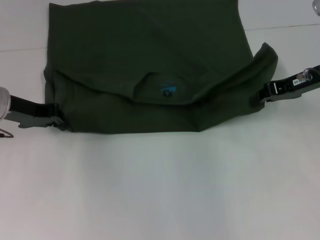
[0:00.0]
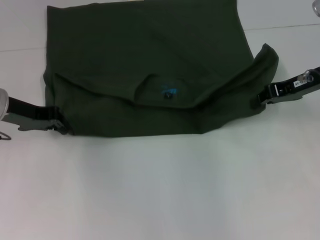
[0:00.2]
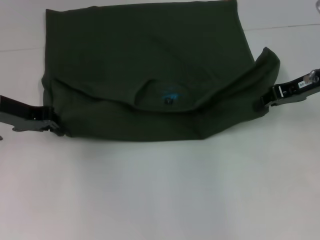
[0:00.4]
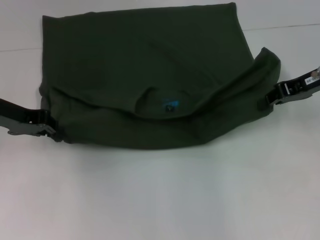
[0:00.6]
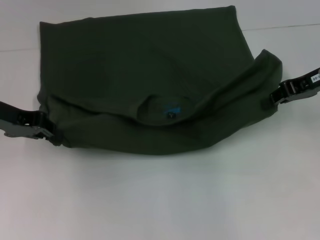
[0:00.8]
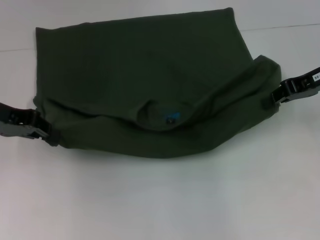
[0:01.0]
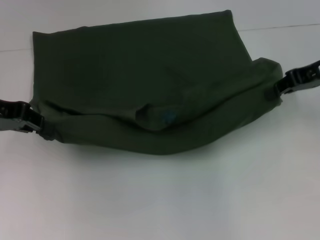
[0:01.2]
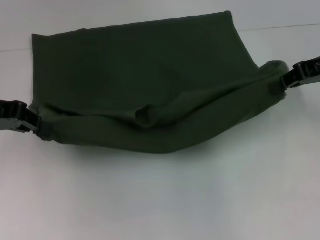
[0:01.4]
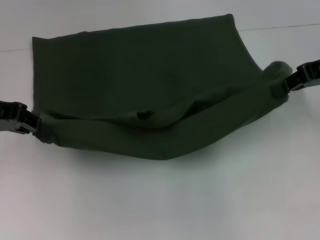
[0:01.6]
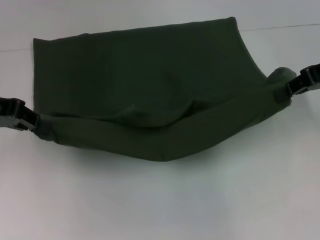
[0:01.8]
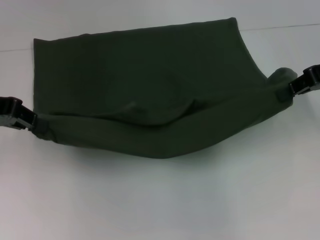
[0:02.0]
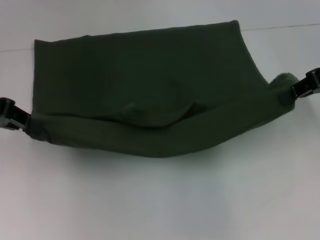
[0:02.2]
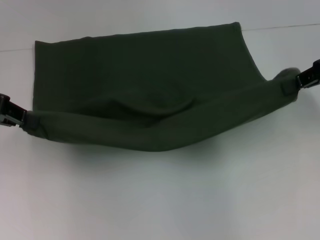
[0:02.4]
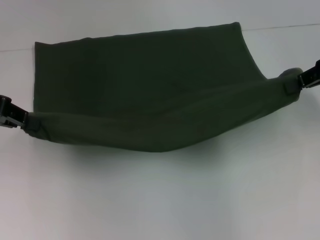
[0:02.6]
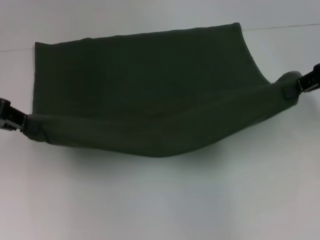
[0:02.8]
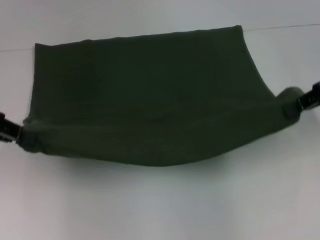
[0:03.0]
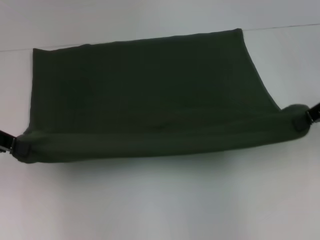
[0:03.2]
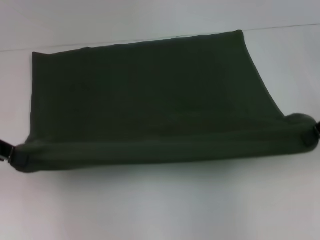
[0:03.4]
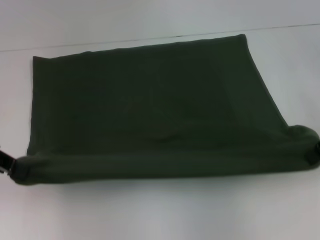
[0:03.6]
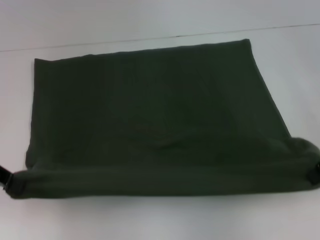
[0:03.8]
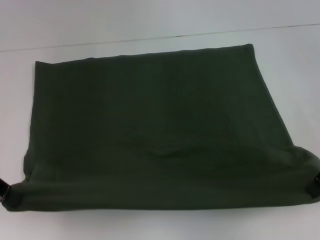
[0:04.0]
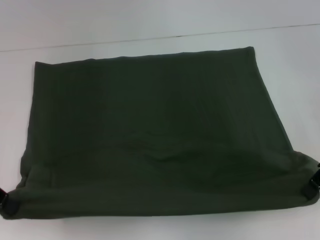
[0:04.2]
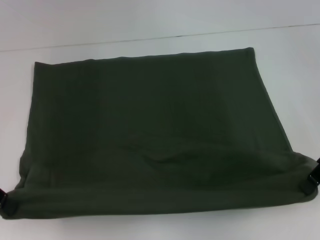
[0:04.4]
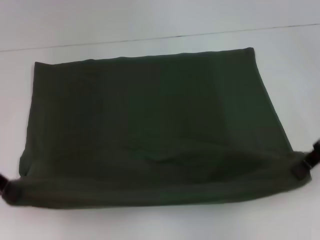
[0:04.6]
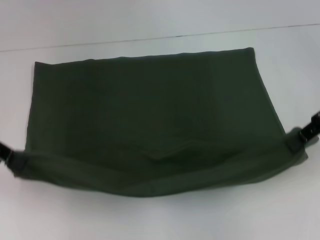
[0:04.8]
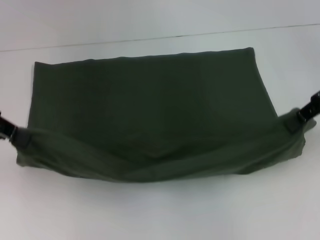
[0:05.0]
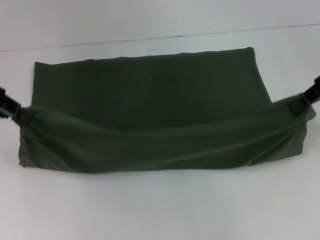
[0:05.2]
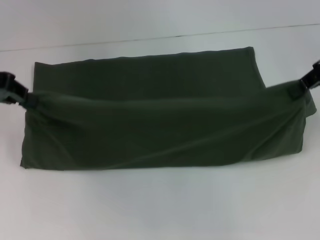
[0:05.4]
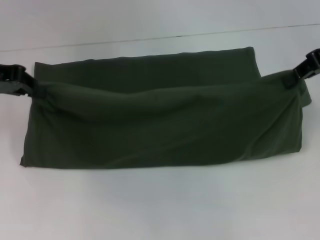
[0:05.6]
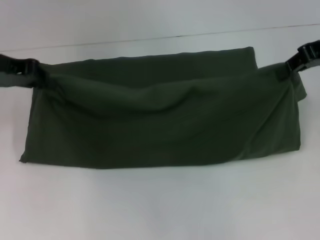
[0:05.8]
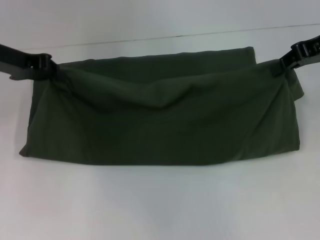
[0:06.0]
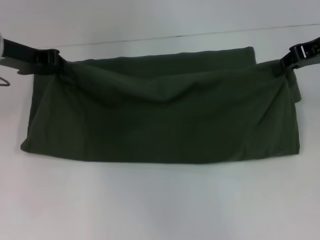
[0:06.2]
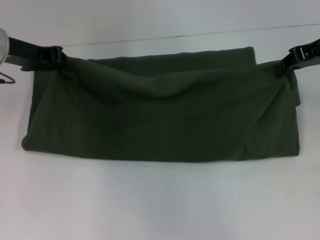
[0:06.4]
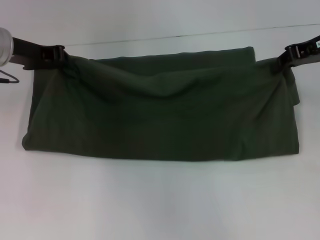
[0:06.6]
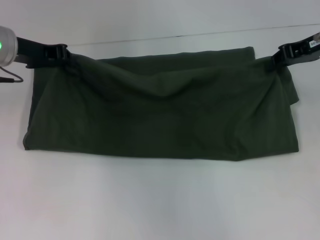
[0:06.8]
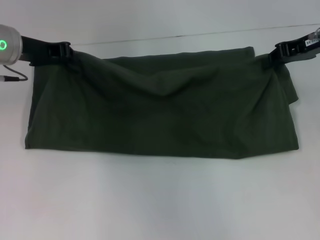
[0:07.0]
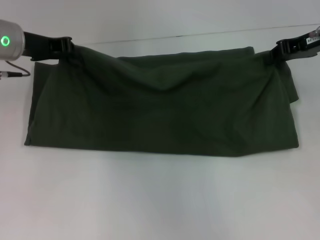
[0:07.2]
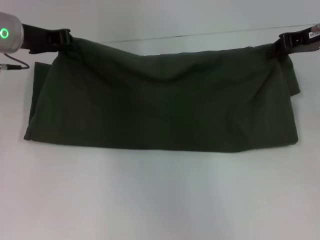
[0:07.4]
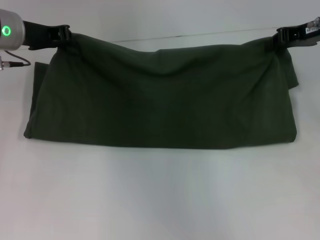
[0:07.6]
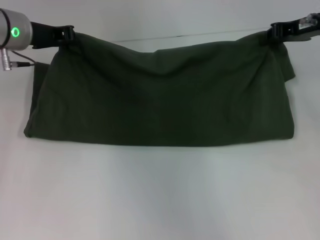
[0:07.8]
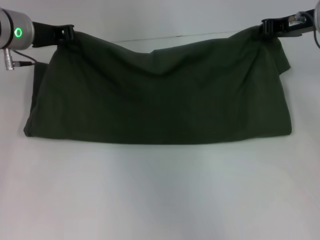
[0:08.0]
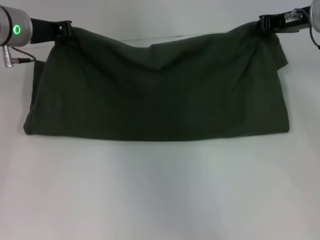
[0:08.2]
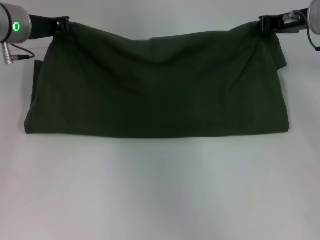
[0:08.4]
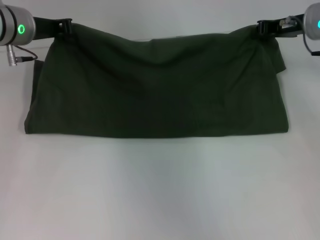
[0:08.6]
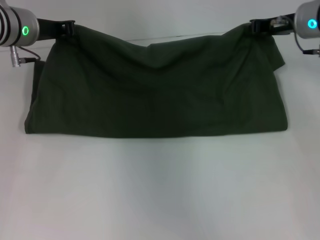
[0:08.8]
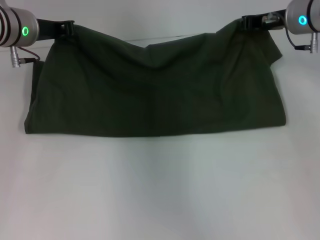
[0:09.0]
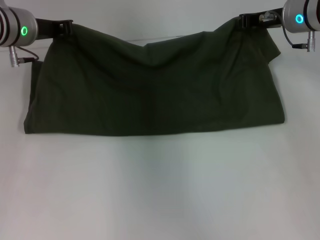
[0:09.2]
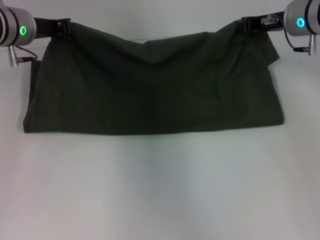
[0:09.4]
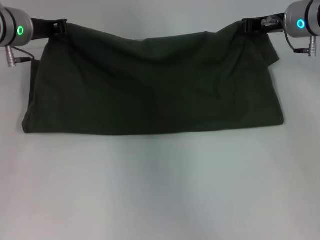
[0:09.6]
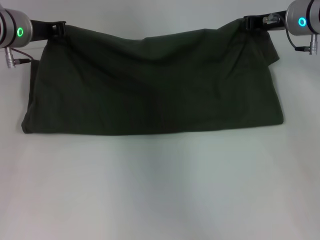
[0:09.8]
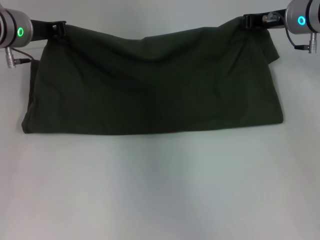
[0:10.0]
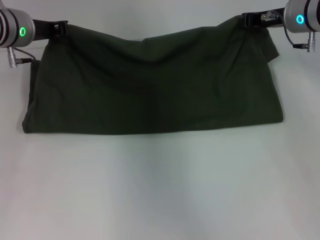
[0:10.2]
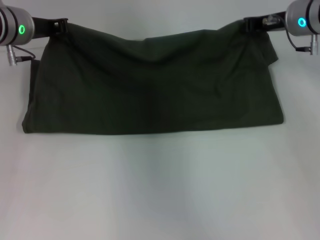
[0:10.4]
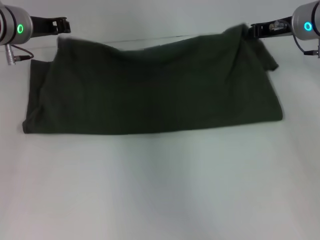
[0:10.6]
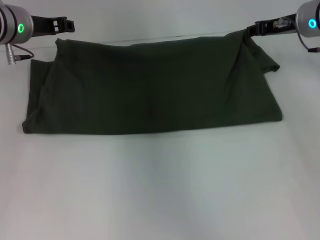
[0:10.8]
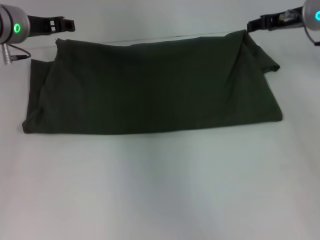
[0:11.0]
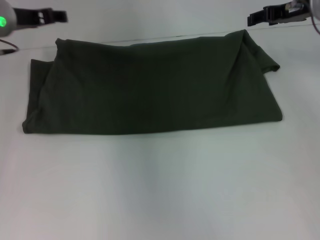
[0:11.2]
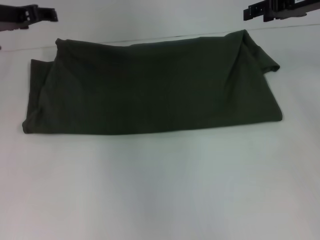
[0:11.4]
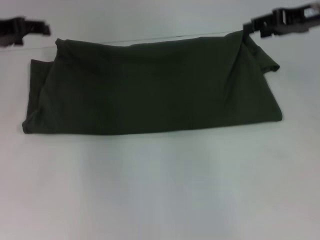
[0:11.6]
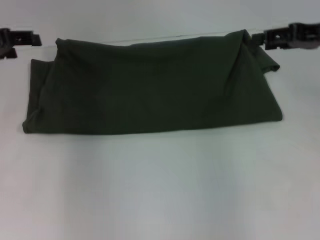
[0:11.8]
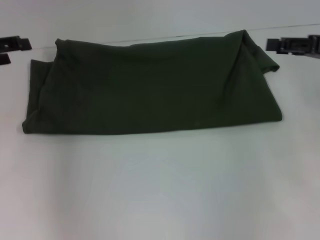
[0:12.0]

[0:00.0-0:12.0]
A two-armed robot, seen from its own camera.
Step, 0:01.4 to 0:10.8: Fold the clothes with your left hand.
Step, 0:01.4 to 0:10.8: Fold the clothes with your right hand.
0:00.0 to 0:01.6: Both grippers move upward, some 10 cm.
0:01.6 to 0:03.0: The grippers make only small movements.
0:03.0 to 0:04.4: The right gripper moves approximately 5 cm.
0:04.4 to 0:06.0: The left gripper travels forward and to the right by some 10 cm. The right gripper shifts roughly 10 cm forward and upward.
0:06.0 to 0:07.6: The left gripper shifts by approximately 5 cm.
0:07.6 to 0:09.0: The right gripper goes approximately 5 cm to the left.
0:09.0 to 0:10.4: Neither gripper changes place.
0:10.4 to 0:12.0: The right gripper heads backward and to the right, covering roughly 15 cm, and opens up. Meanwhile the left gripper goes roughly 15 cm to the left and backward, and opens.

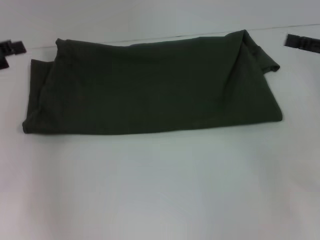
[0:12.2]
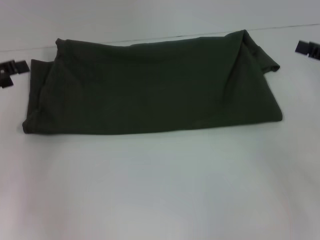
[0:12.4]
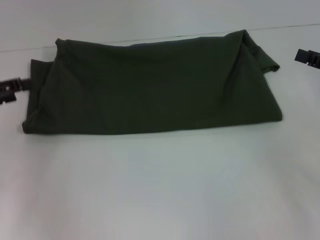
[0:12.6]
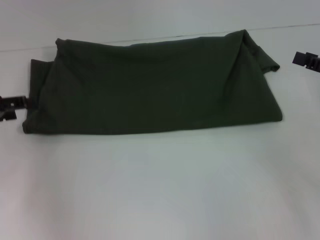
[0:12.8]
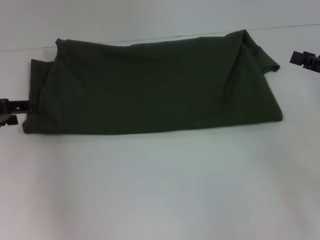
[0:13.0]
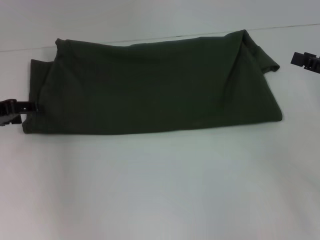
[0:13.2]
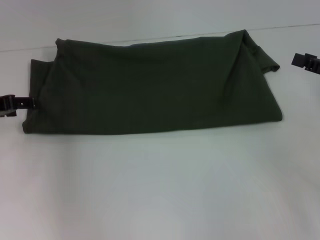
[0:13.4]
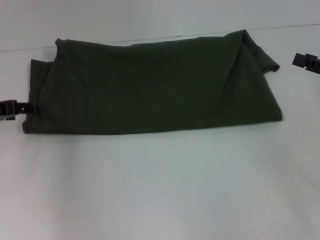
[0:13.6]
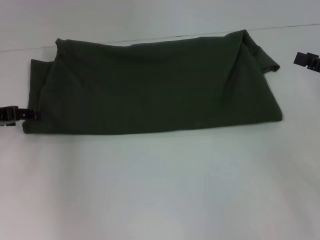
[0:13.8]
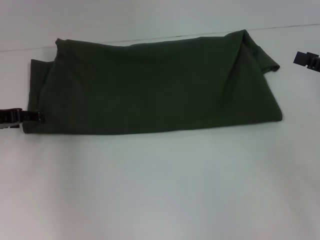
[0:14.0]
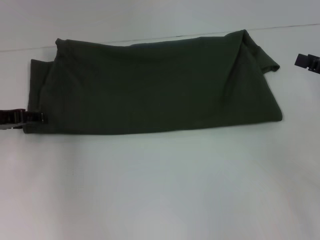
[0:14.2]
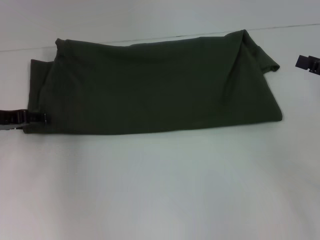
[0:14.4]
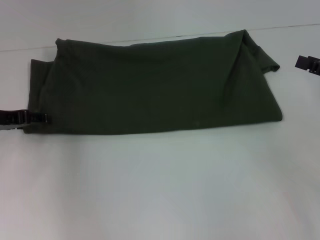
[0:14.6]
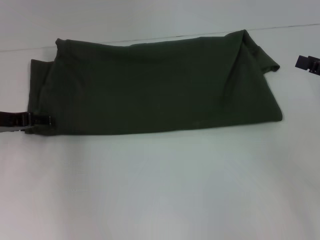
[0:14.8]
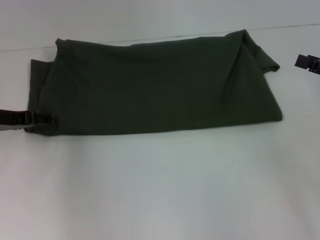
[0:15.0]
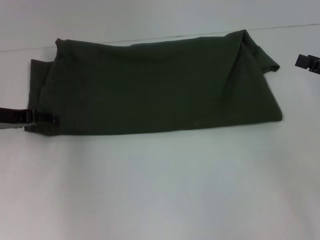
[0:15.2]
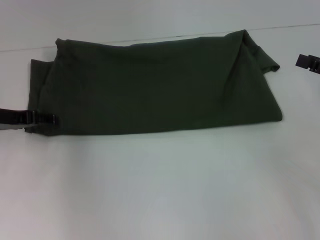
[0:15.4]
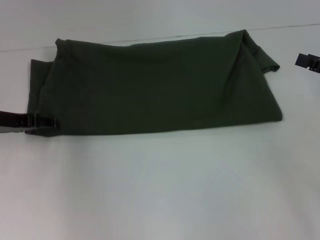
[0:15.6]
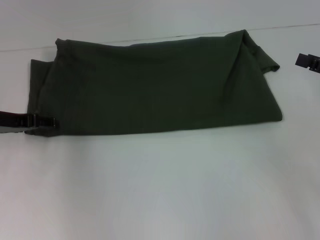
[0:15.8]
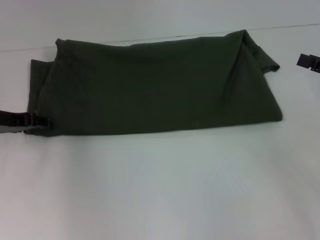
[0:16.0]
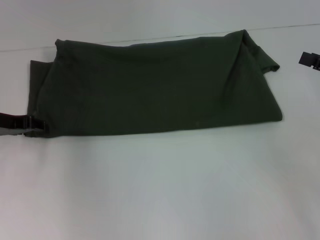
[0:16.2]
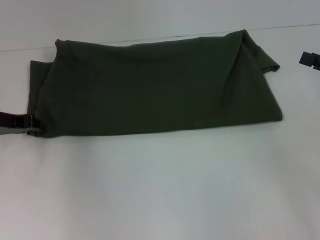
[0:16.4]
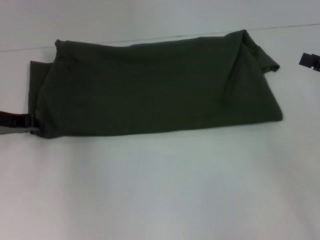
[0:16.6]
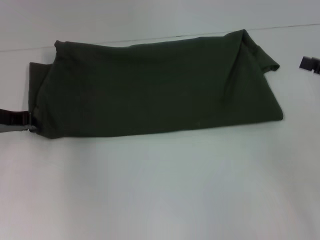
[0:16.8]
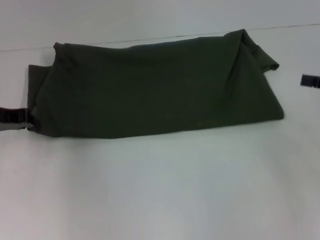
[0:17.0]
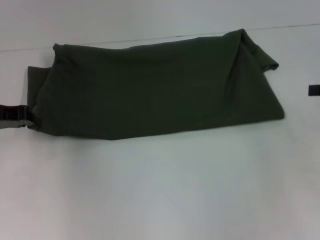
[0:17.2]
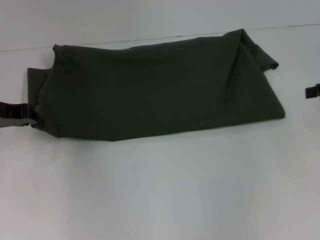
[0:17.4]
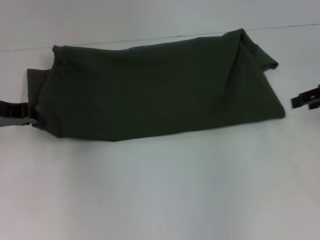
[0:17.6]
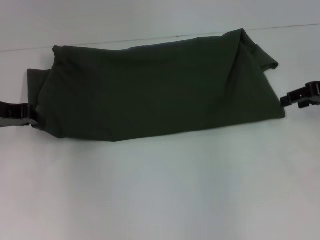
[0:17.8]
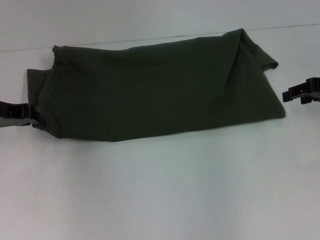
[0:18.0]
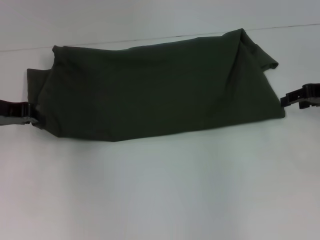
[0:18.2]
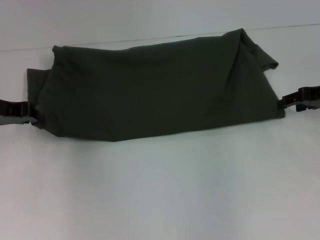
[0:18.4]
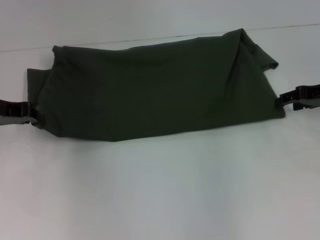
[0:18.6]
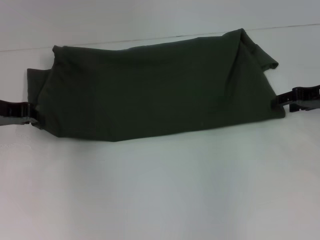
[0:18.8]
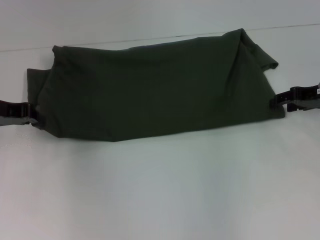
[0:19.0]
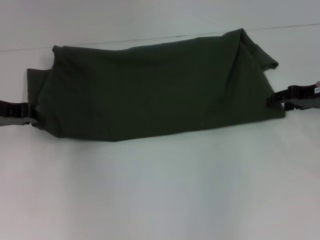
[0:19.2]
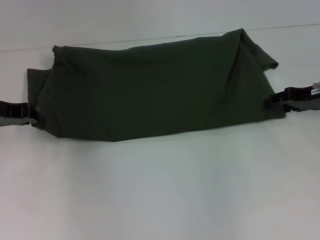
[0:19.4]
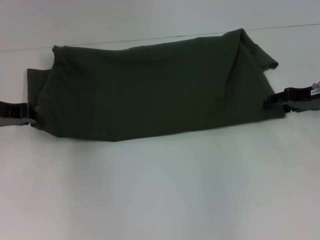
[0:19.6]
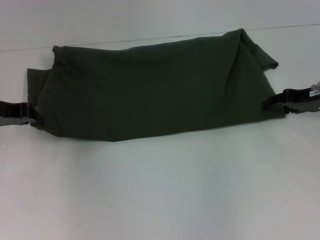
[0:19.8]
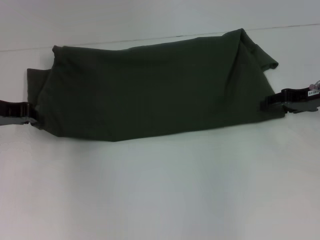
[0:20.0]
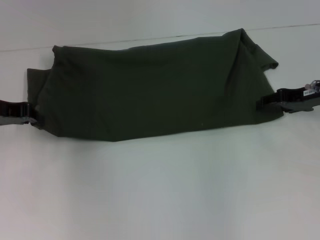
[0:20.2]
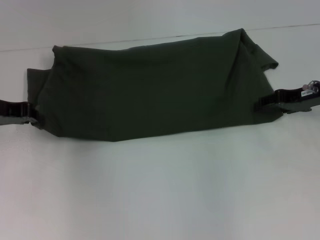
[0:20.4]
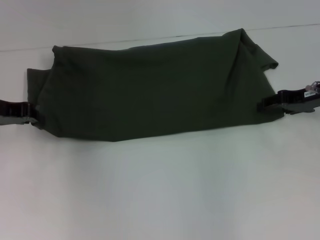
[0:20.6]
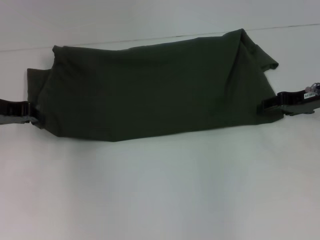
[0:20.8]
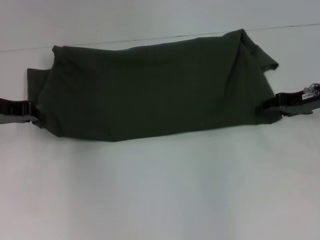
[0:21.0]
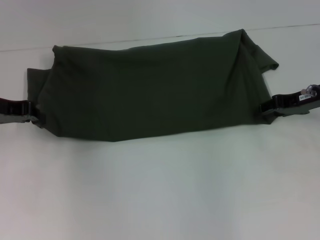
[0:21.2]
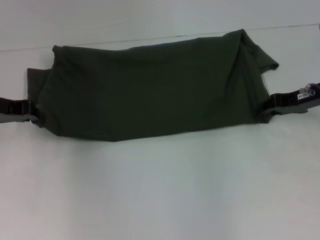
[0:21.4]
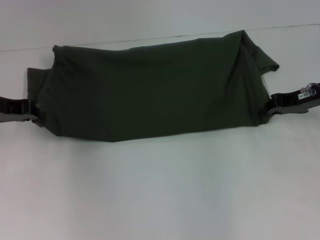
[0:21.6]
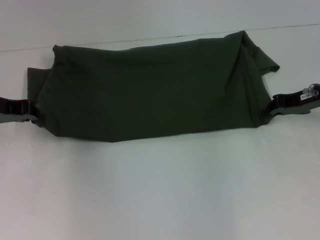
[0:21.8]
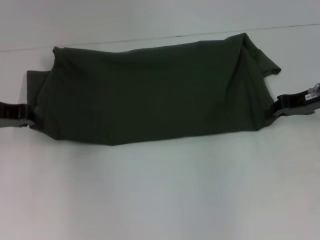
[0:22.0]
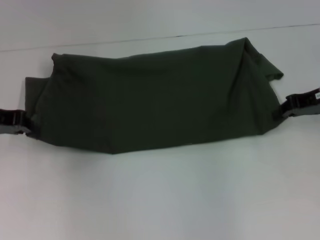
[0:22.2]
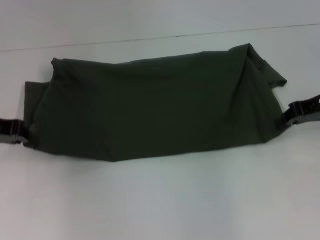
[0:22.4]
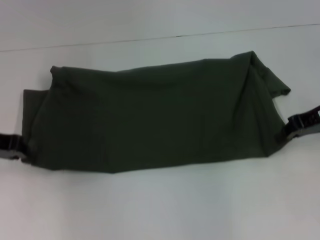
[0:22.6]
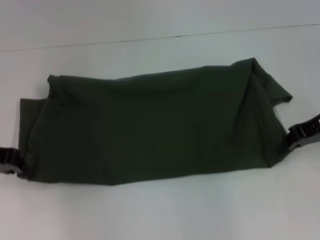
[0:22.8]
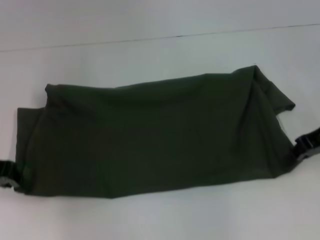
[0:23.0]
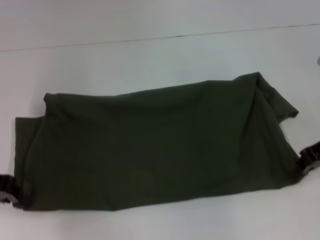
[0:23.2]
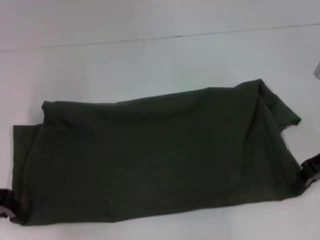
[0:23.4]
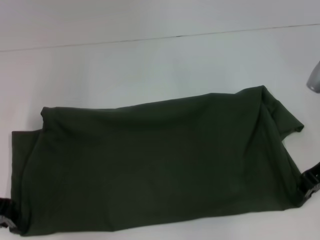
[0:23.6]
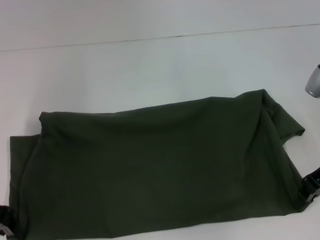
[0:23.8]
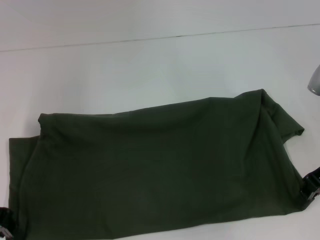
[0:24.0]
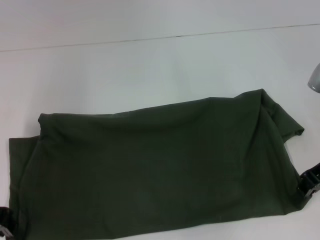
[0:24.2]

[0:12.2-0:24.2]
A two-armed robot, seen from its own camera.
0:12.2 to 0:13.8: The left gripper shifts approximately 5 cm downward.
0:15.2 to 0:16.6: The left gripper closes up.
0:16.6 to 0:18.2: The right gripper moves forward, about 10 cm.
0:18.2 to 0:21.2: The grippers move only a little.
0:21.2 to 0:22.6: The right gripper closes its fingers.
0:22.6 to 0:24.2: The left gripper heads backward, covering roughly 5 cm.
